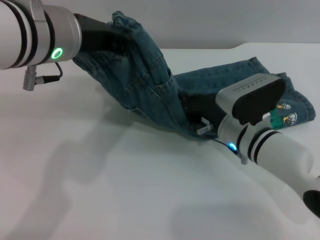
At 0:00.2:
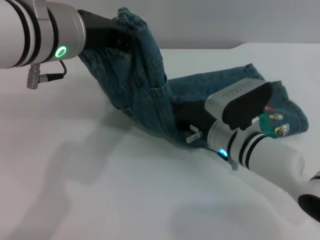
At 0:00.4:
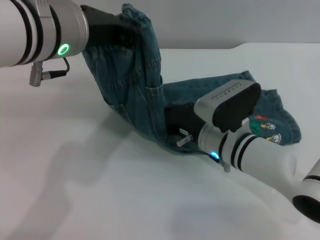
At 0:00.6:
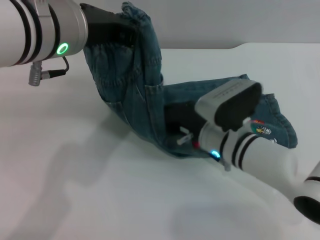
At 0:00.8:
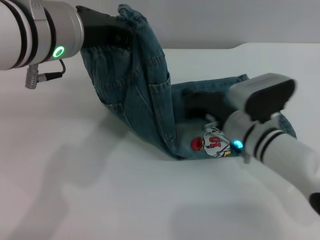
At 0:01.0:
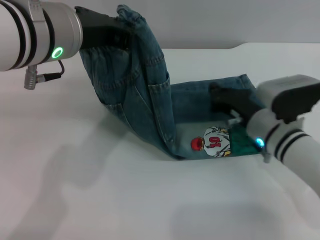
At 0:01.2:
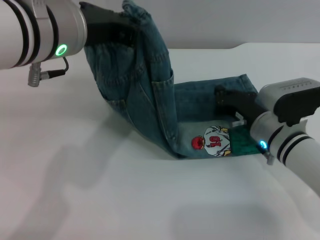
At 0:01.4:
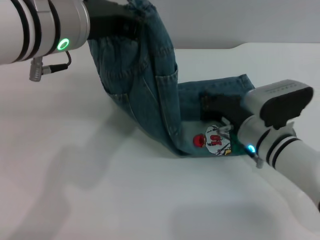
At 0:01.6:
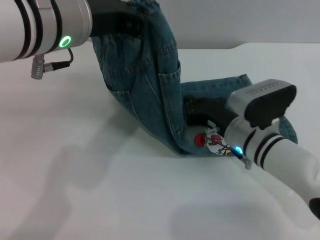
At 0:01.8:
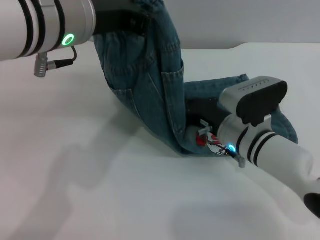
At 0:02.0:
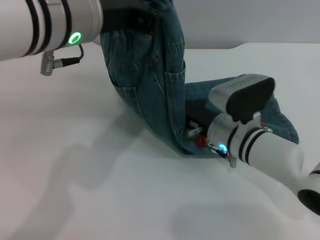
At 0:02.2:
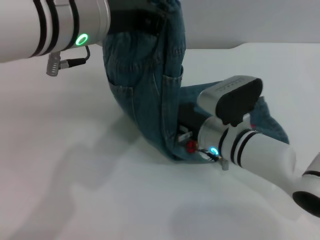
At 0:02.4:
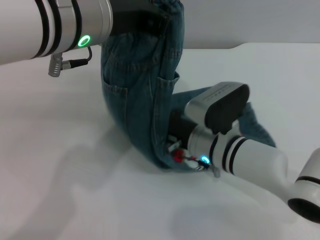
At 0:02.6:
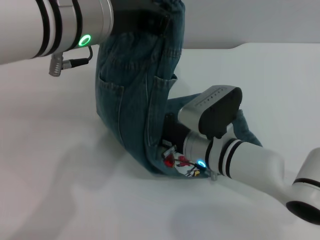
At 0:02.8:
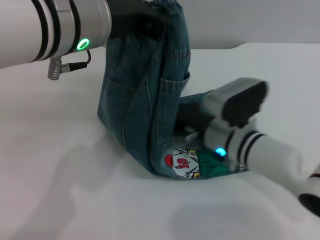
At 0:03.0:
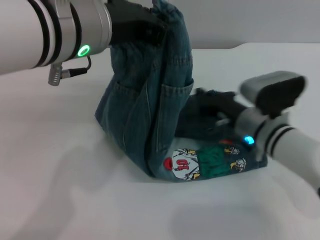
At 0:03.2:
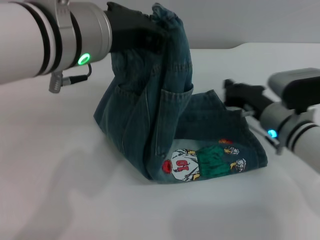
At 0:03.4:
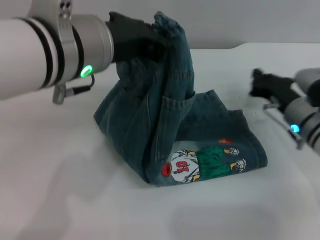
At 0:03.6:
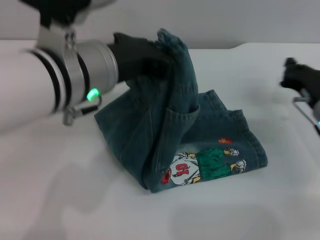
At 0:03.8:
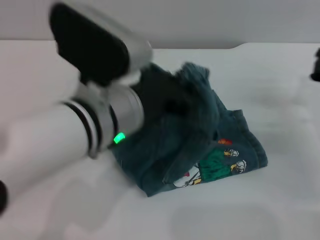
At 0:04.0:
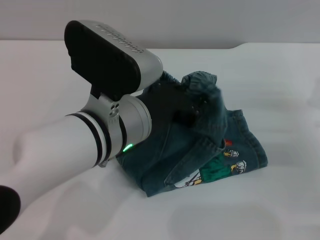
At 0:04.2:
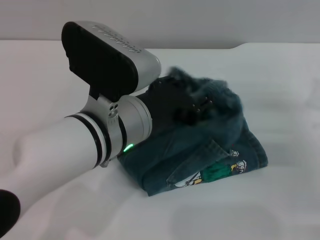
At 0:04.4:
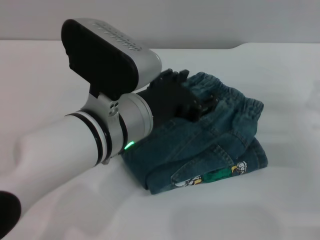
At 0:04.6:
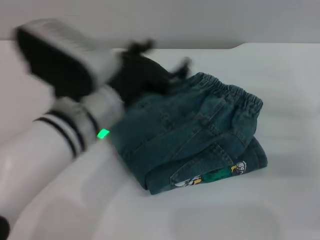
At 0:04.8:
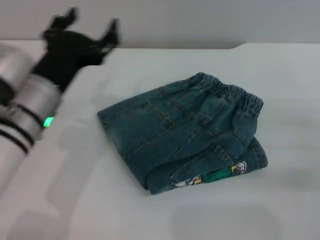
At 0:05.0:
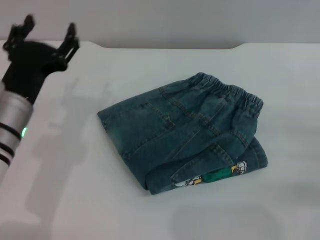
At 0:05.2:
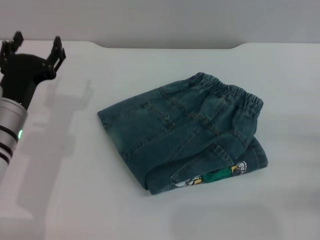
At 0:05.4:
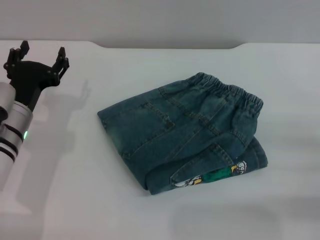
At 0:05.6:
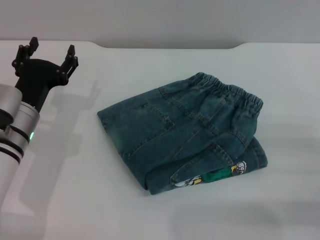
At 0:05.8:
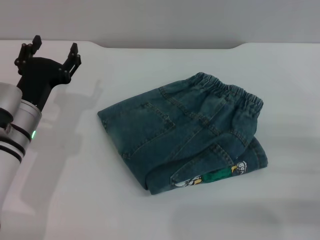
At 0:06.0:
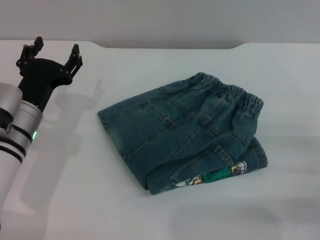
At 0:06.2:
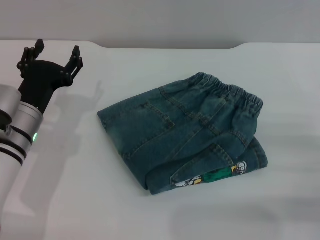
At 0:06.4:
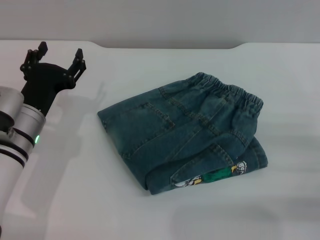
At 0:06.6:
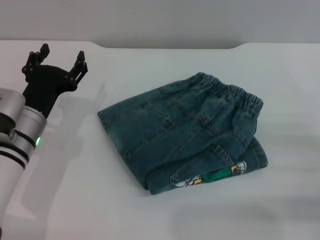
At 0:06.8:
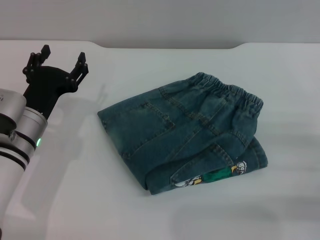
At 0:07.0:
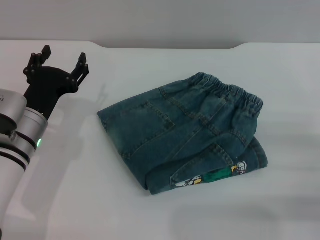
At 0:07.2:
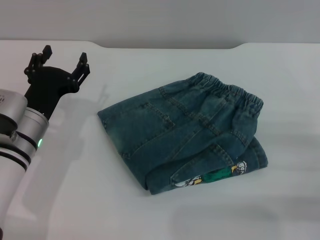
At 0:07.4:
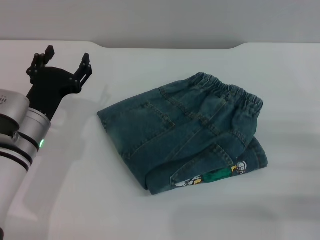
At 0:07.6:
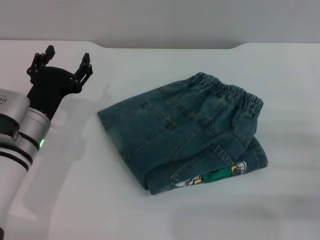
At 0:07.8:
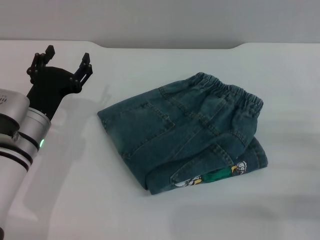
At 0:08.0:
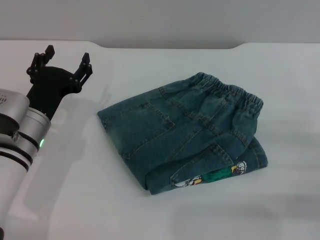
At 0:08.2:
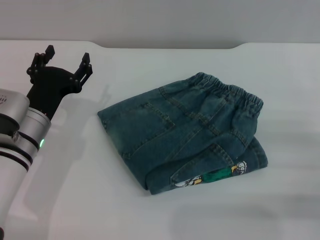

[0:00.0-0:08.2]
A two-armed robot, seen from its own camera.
Step, 0:00.0 to 0:04.6: Fold the pants from left to right with the left gripper.
0:00.0 to 0:01.6: The right gripper reaches about 5 cm to the right, then returns.
0:01.6 to 0:03.2: The right gripper travels to the right by about 5 cm.
0:03.2 to 0:05.0: The left gripper shifts some 20 cm downward and to the left, and opens; the right gripper goes roughly 20 cm to the right and backward.
0:05.0 to 0:06.6: The left gripper is displaced downward by some 5 cm.
0:06.6 to 0:08.2: Both grippers stay about where they are.
